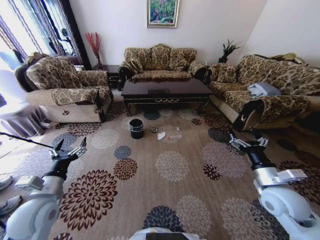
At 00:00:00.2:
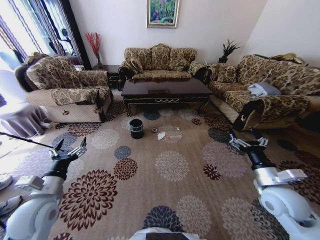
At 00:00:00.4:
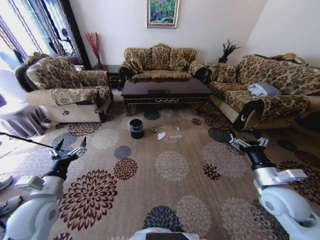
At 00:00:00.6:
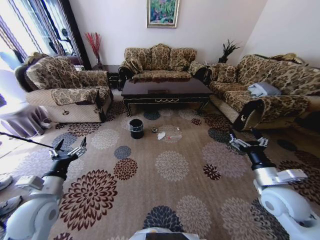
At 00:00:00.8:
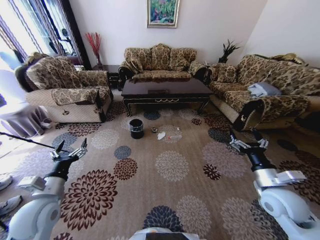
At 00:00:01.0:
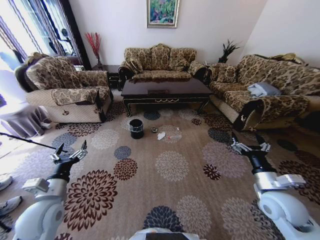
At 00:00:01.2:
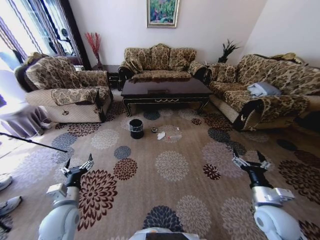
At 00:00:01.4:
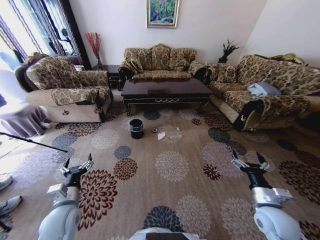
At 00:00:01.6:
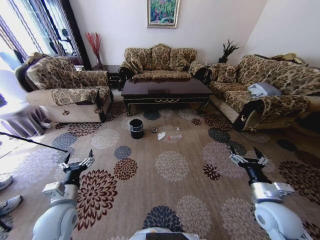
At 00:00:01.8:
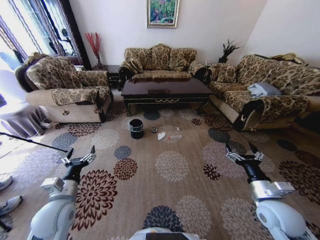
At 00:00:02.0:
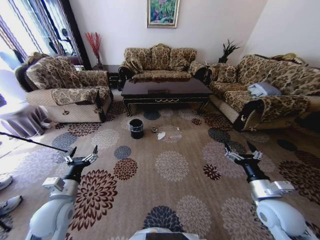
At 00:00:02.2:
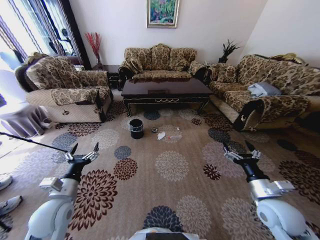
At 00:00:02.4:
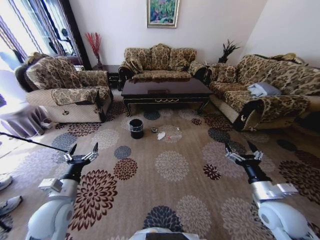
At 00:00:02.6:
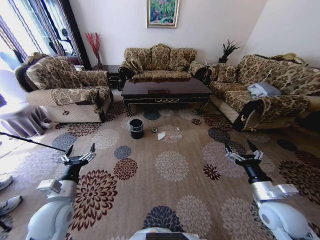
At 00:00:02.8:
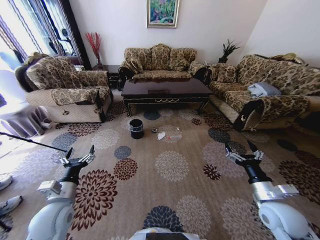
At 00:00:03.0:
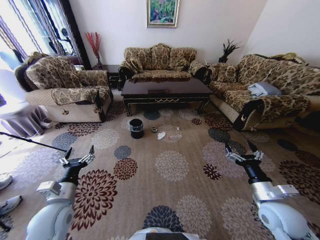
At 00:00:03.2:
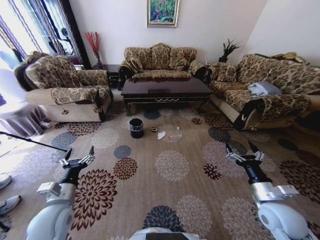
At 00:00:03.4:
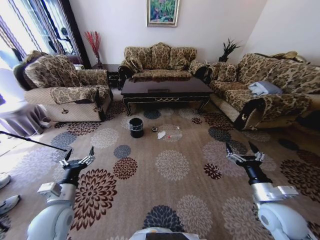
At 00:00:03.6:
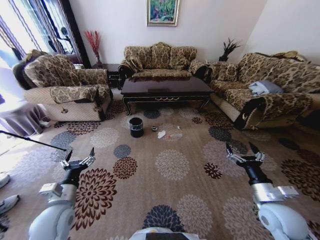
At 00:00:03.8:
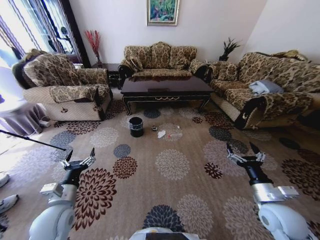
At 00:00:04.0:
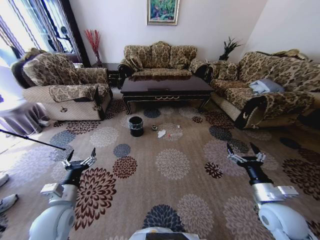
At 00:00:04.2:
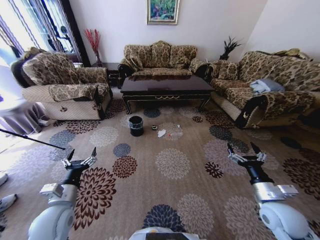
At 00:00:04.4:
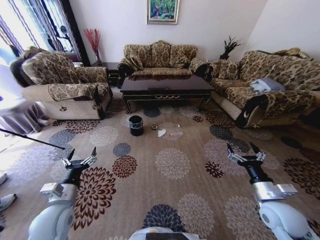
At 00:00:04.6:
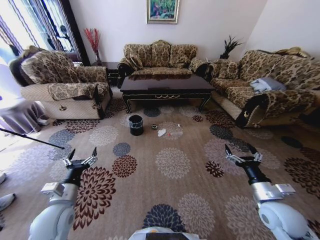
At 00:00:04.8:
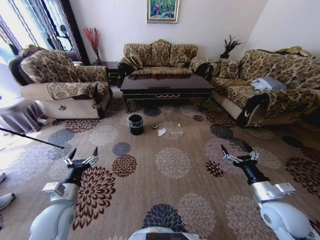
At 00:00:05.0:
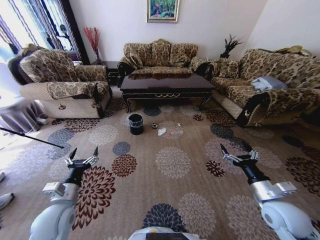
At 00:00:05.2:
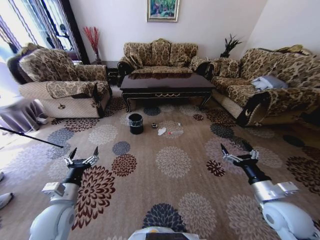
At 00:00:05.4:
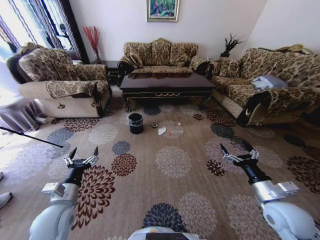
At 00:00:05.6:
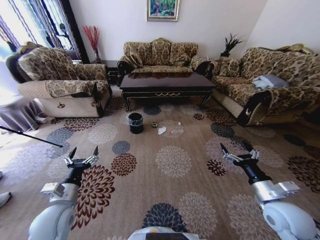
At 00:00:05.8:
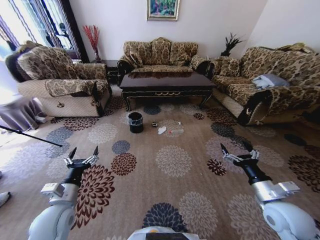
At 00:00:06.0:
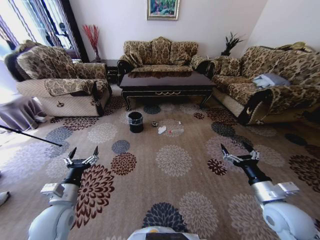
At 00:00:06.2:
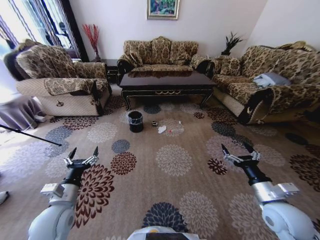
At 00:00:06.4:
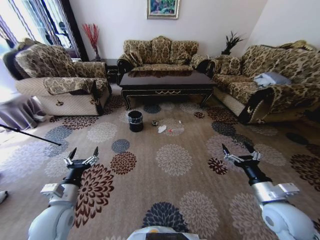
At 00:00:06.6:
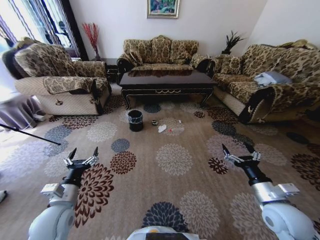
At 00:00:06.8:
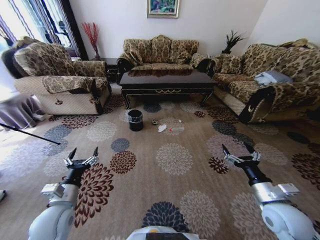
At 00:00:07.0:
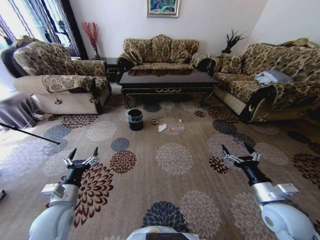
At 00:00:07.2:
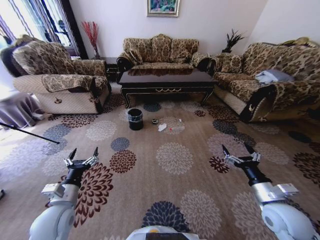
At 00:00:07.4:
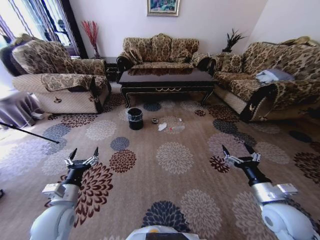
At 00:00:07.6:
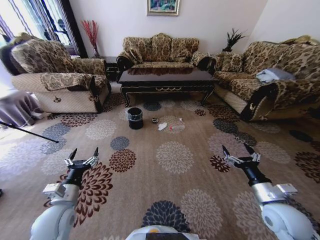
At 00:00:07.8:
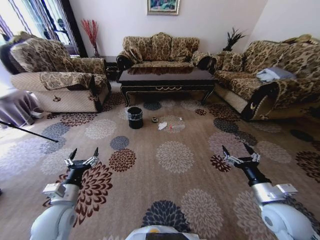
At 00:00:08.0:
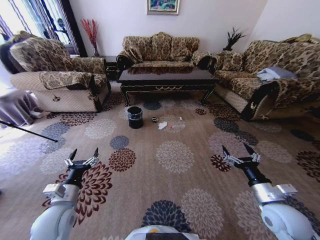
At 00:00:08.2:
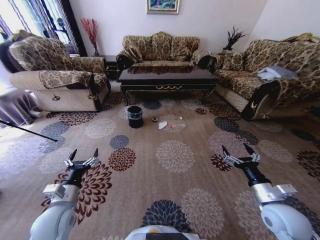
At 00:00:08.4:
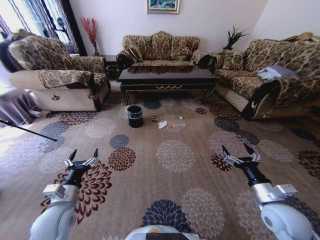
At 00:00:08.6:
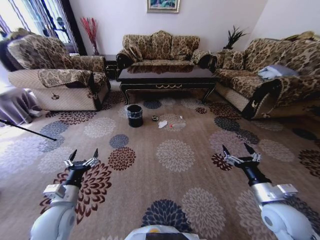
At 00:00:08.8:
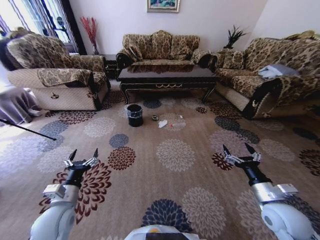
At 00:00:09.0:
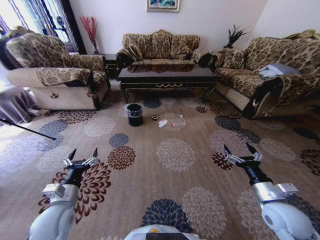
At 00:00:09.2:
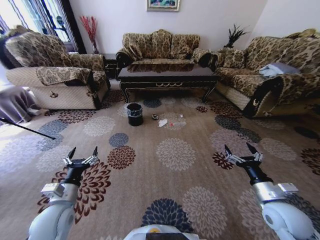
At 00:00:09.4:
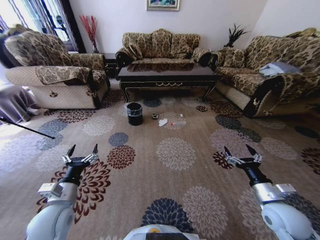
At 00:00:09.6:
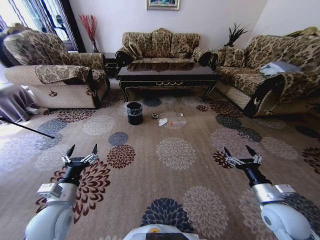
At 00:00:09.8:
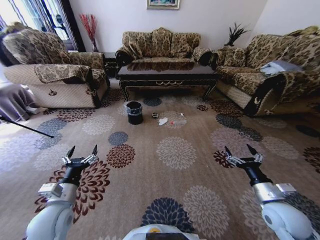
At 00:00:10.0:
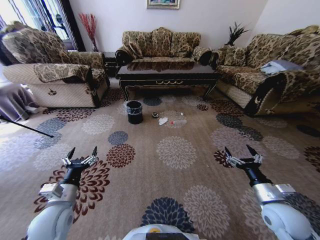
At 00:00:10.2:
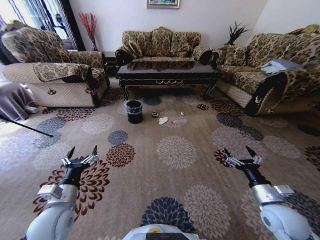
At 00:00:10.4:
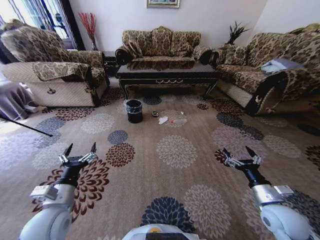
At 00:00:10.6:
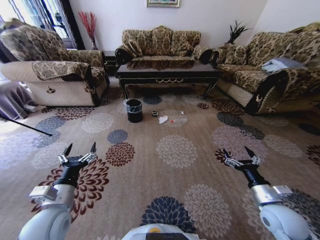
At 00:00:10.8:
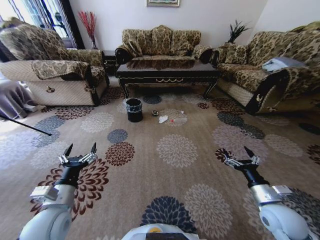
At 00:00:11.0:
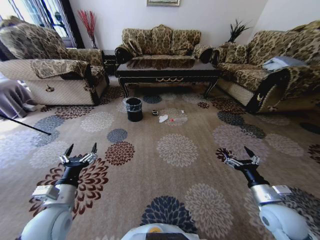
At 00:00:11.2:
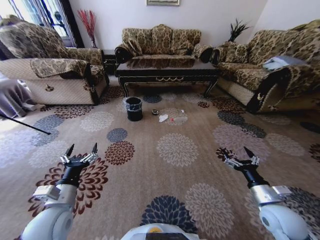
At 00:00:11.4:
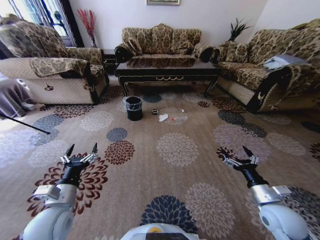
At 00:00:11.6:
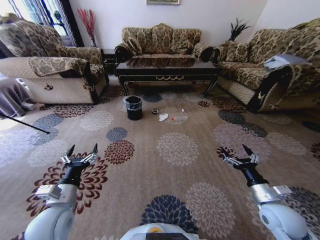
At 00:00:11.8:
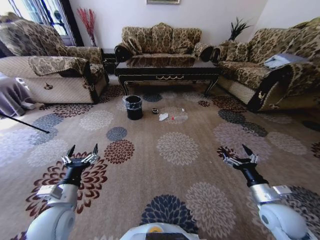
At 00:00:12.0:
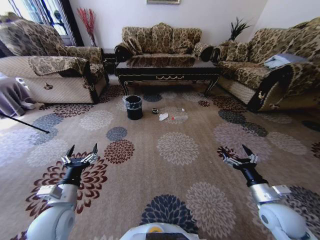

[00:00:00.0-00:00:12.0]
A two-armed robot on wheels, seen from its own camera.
Task of the whole recording: Move to the front of the table and pick up the trash from the floor, then place it into the trash bin.
00:00:01.6 to 00:00:03.0: There are only small adjustments of the grippers.

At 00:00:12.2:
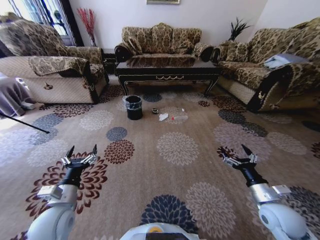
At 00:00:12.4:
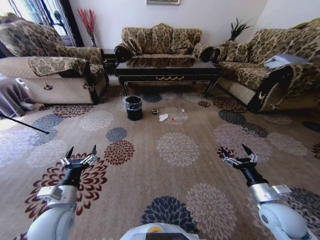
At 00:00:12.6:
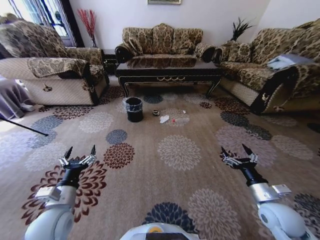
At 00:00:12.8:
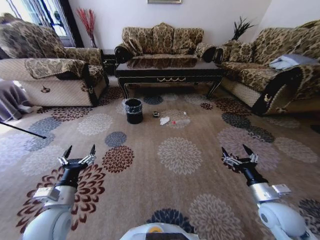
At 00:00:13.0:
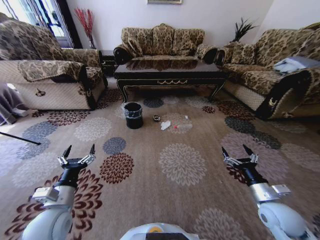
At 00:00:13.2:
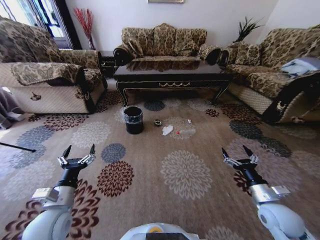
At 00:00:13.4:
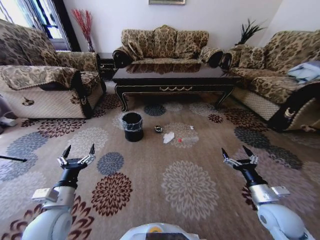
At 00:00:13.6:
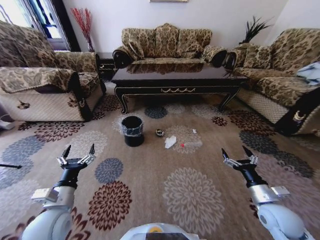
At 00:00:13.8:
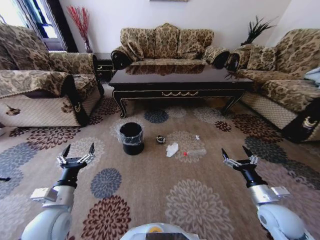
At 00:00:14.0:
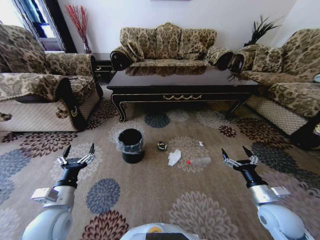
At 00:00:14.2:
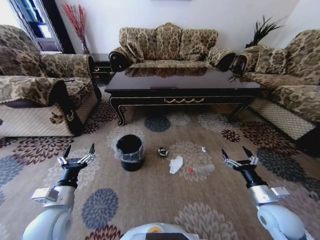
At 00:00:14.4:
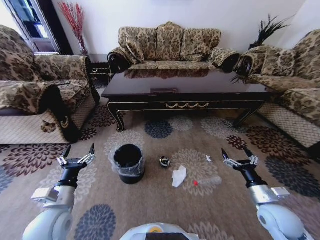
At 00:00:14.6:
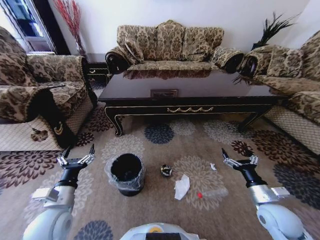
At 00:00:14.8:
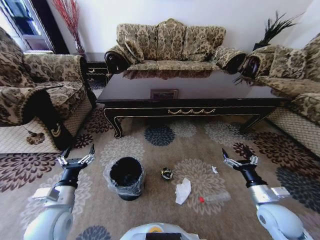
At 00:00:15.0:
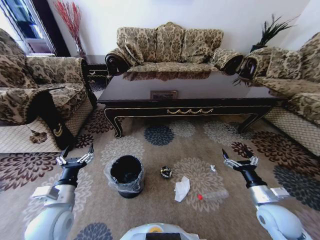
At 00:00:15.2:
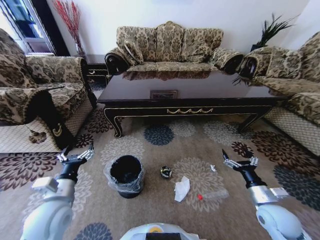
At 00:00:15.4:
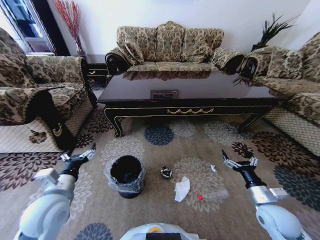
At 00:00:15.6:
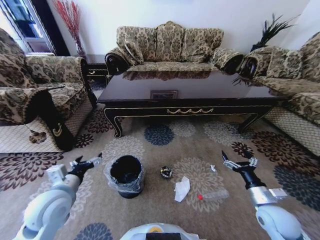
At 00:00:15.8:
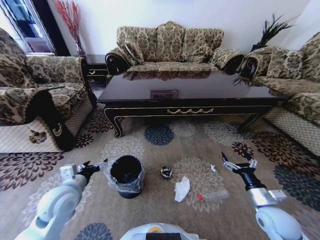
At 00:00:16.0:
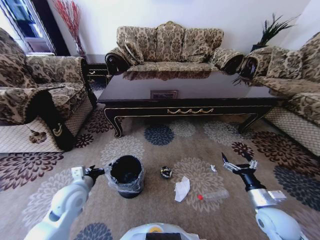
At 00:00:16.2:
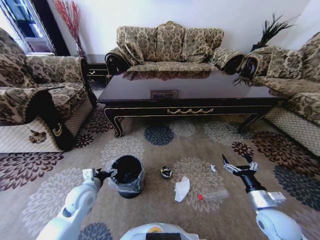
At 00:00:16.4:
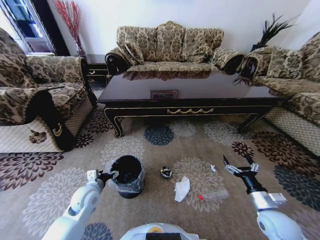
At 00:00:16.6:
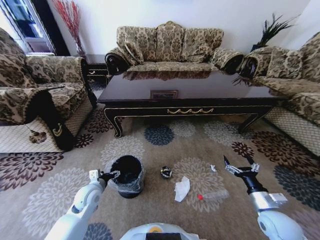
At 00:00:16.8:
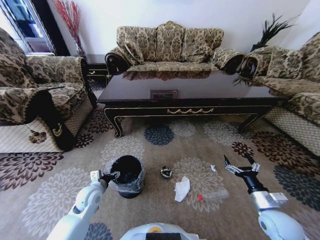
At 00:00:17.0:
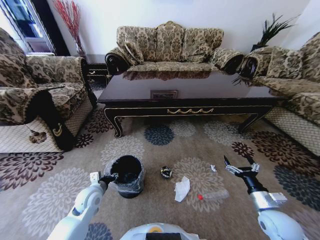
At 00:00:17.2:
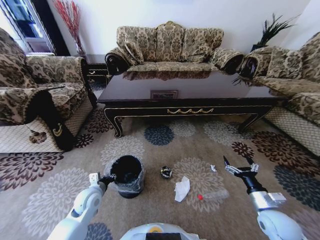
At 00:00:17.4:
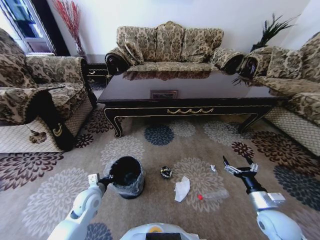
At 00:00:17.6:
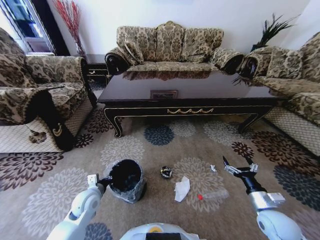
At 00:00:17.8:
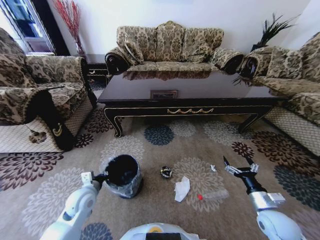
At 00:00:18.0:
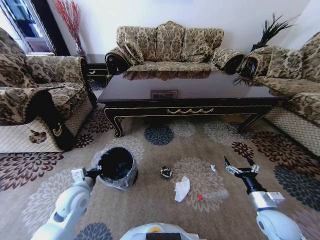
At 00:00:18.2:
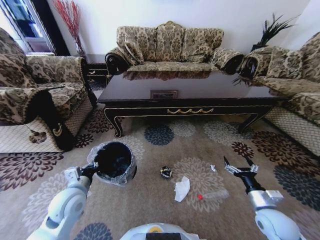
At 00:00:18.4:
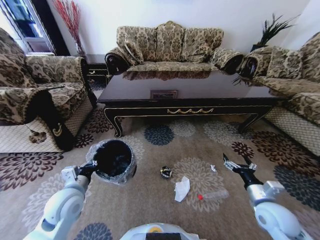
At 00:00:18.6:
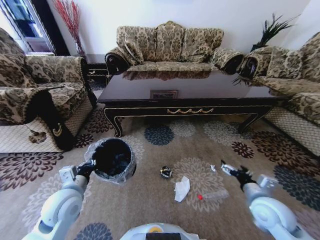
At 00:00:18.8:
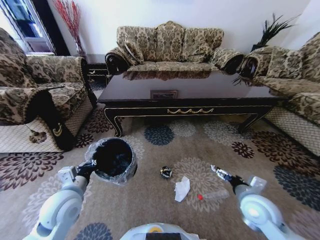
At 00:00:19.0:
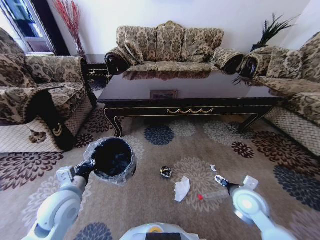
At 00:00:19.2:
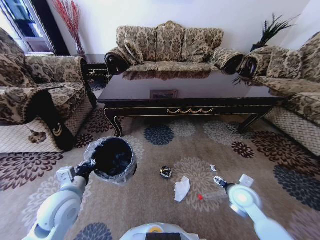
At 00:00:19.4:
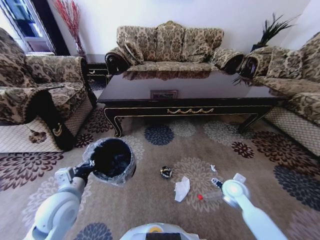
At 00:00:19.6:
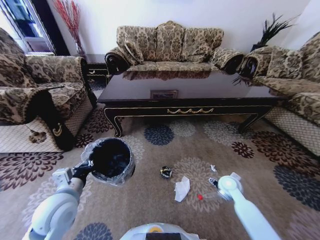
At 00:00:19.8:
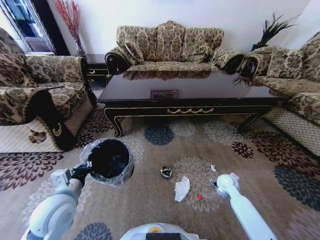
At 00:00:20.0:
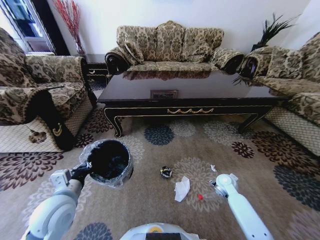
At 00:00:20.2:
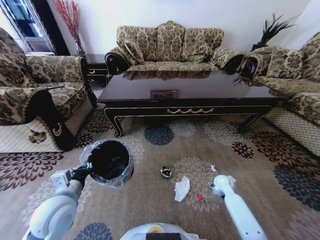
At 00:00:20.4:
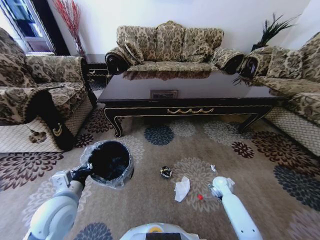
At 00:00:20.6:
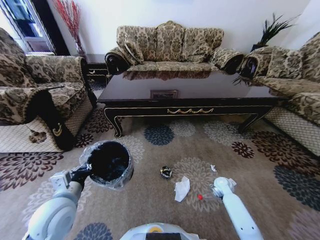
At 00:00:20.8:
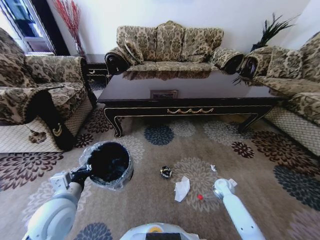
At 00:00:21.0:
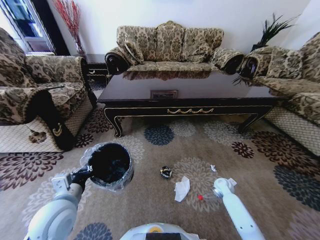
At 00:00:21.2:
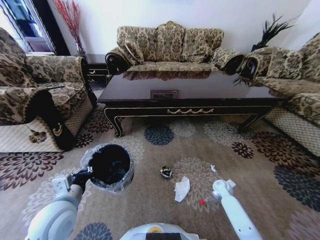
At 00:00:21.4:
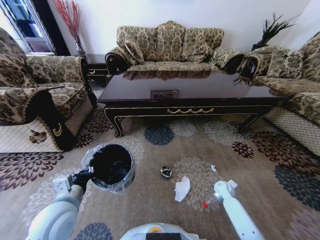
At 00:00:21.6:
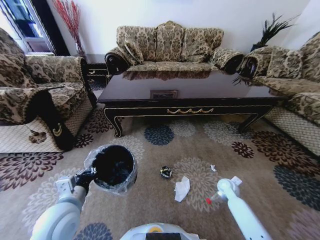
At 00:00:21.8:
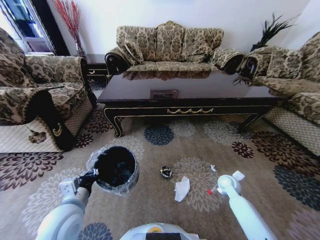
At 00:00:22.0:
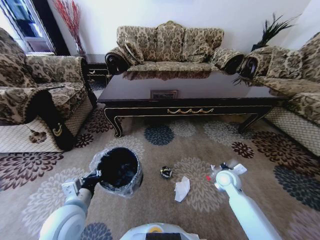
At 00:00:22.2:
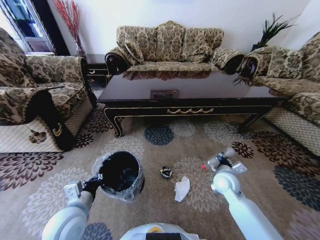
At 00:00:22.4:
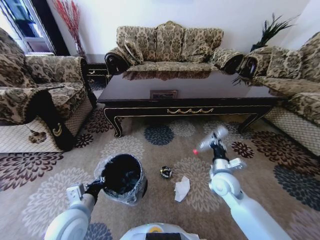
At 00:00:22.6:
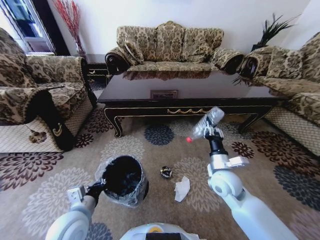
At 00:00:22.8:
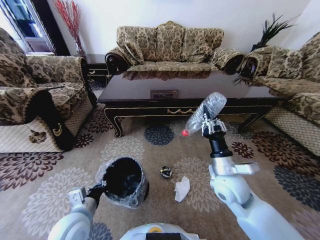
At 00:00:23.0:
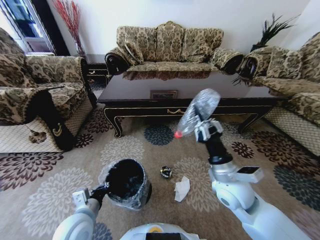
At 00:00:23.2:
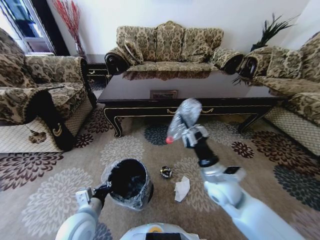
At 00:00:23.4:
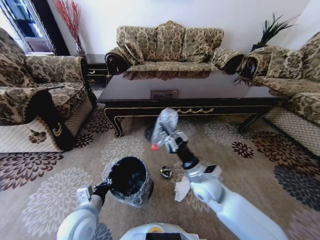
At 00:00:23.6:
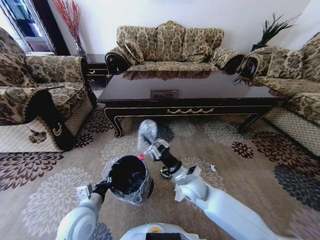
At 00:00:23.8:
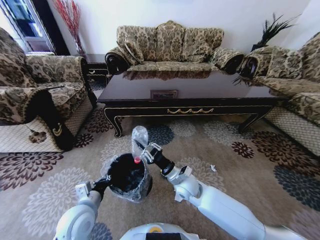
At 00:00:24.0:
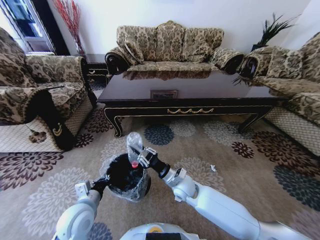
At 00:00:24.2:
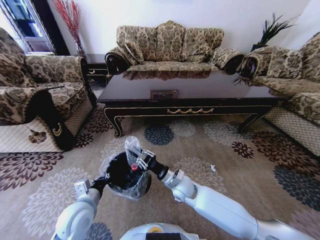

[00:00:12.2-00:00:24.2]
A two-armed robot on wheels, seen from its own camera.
Task of the whole recording: Move to the front of the table and pick up the trash from the floor, then place it into the trash bin.
00:00:15.2 to 00:00:16.6: The left gripper shifts some 15 cm downward and forward.
00:00:16.6 to 00:00:18.2: The left gripper travels upward by roughly 10 cm, and closes up.
00:00:18.2 to 00:00:19.8: The left gripper shifts by some 5 cm; the right gripper shifts some 15 cm forward.
00:00:19.8 to 00:00:21.2: The right gripper goes roughly 10 cm downward, and closes up.
00:00:21.2 to 00:00:22.6: The left gripper changes place by about 5 cm. The right gripper is displaced upward and to the left by approximately 25 cm.
00:00:22.6 to 00:00:24.2: The right gripper travels to the left and downward by some 15 cm.
